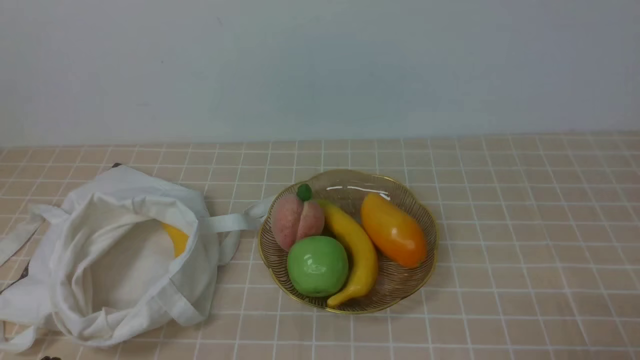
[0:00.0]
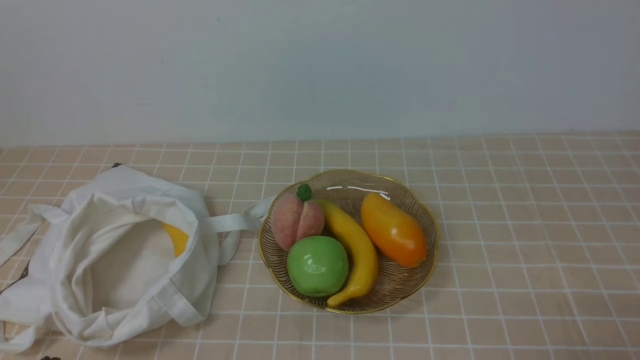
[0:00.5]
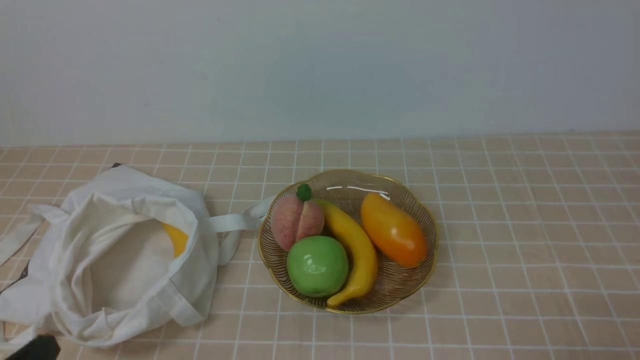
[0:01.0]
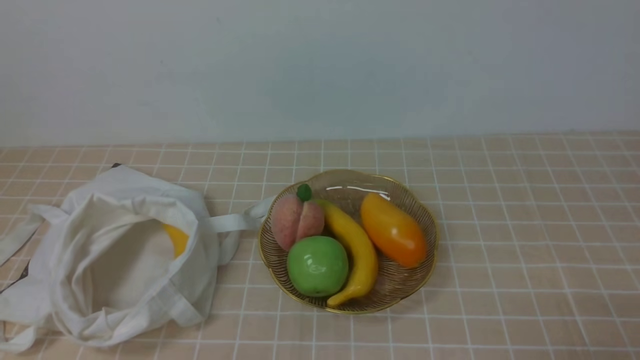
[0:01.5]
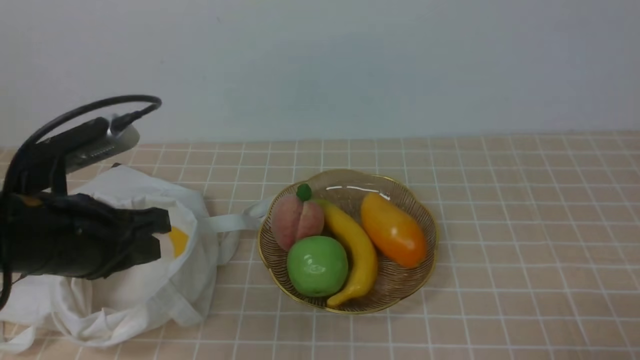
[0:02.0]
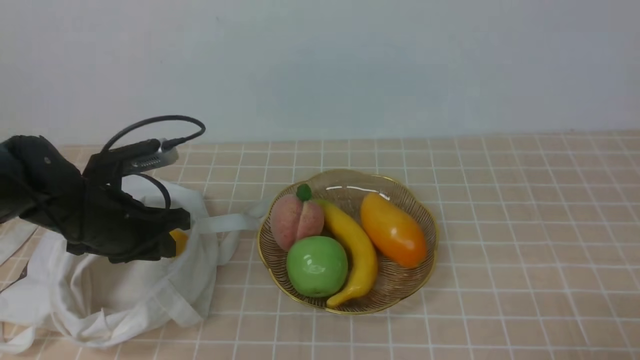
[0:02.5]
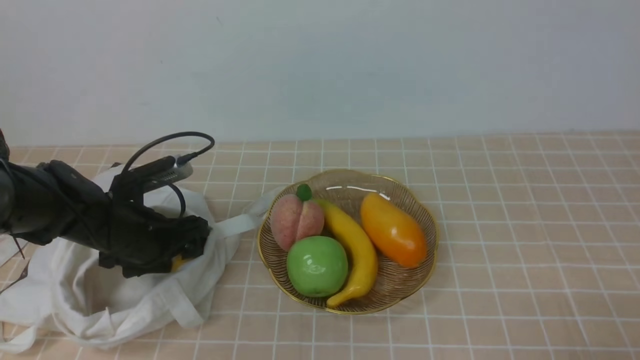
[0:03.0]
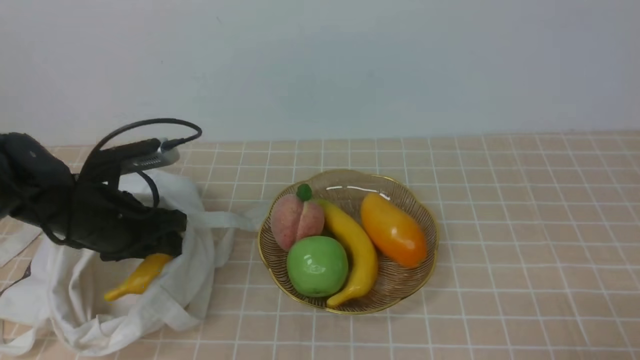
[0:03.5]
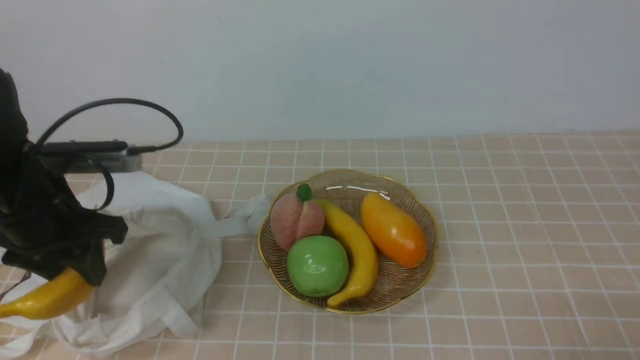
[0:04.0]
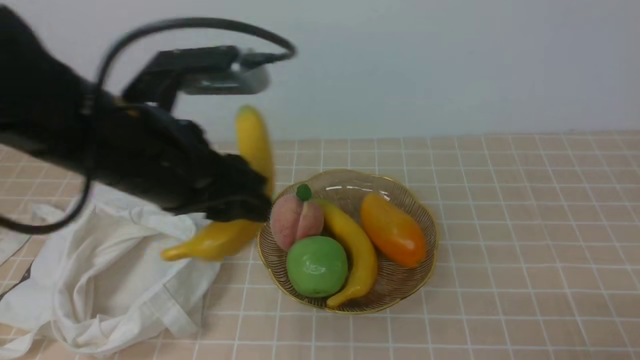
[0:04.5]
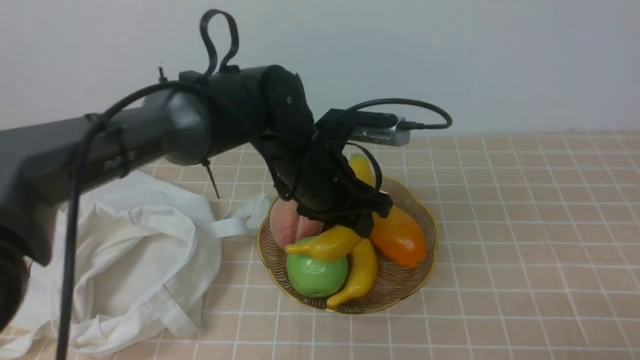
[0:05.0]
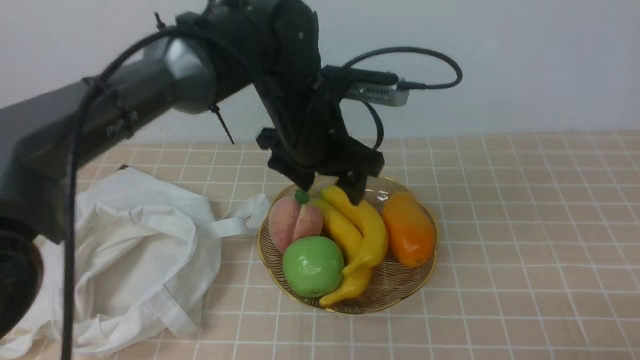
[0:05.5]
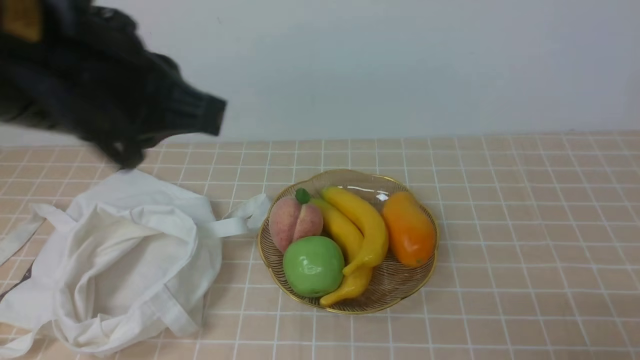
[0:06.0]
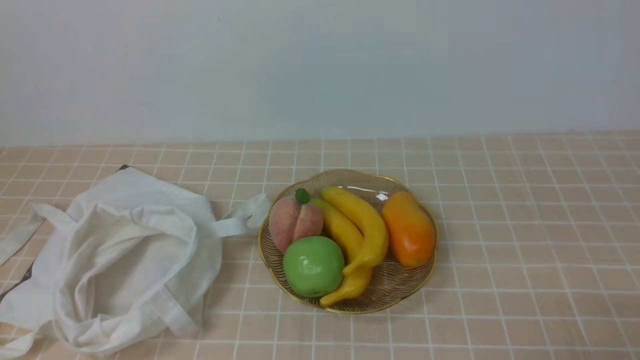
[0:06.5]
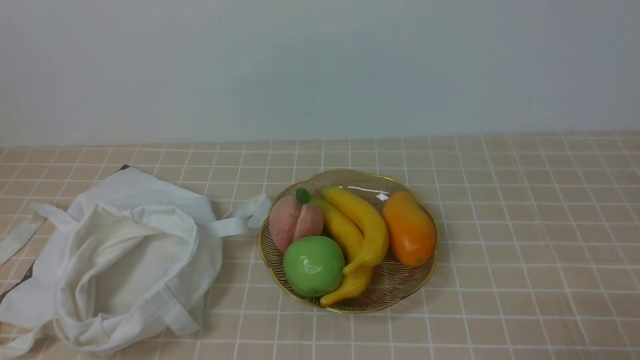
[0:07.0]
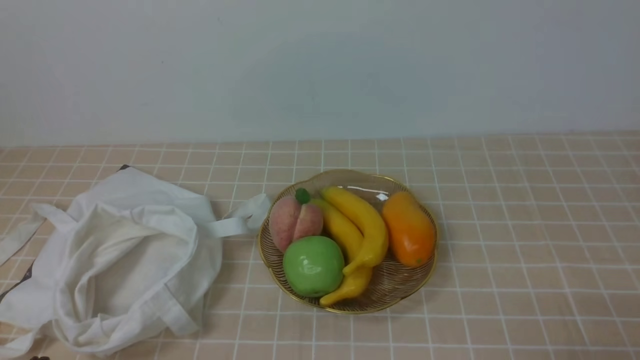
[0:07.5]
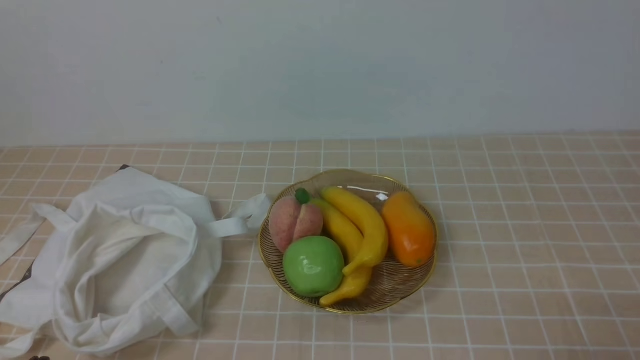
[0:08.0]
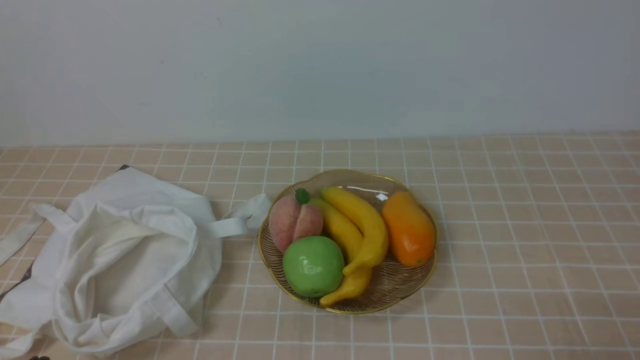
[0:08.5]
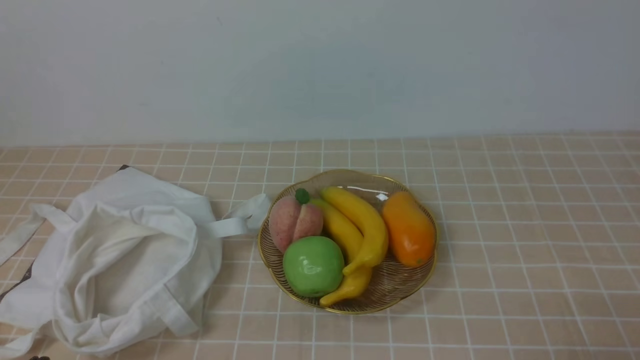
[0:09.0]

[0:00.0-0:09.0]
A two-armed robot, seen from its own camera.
Step, 0:00.0 to 0:03.5: use the left arm to grab a banana from the bag.
Step, 0:04.0 to 0:05.0: use the left arm to put the banana into the empty plate on the right.
0:00.0 to 0:02.0: The left gripper goes roughly 20 cm forward and upward.
0:02.0 to 0:04.5: The left gripper is displaced to the right by some 10 cm, goes downward and returns, some 10 cm each way, and opens up.
0:04.5 to 0:07.0: The left gripper heads backward, to the left and downward, covering about 30 cm, and closes.

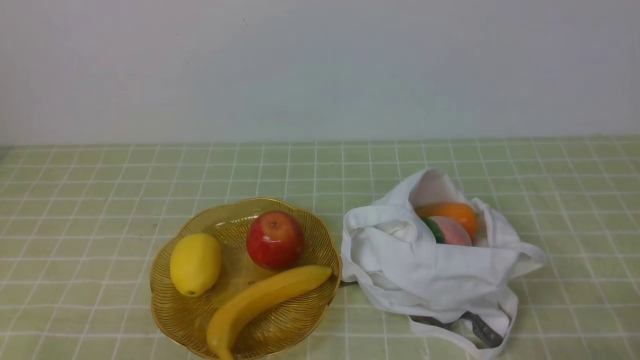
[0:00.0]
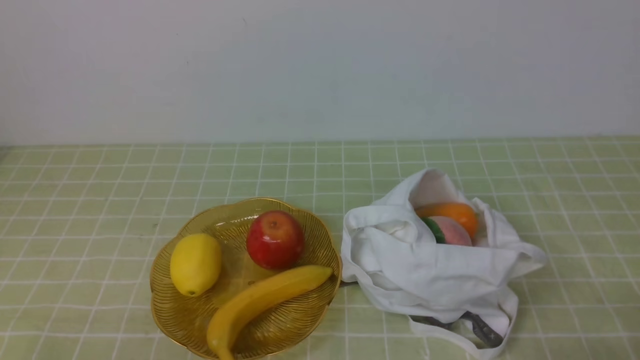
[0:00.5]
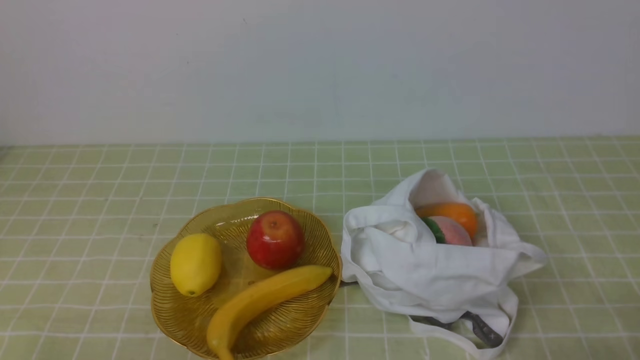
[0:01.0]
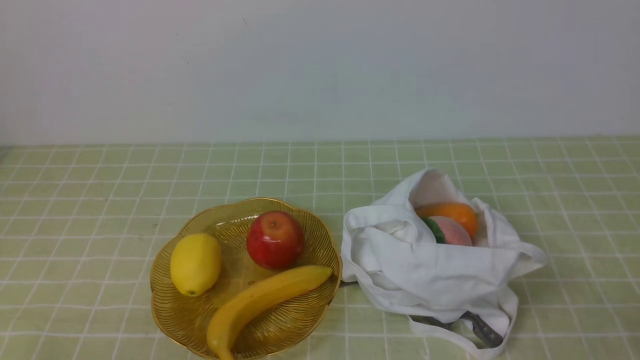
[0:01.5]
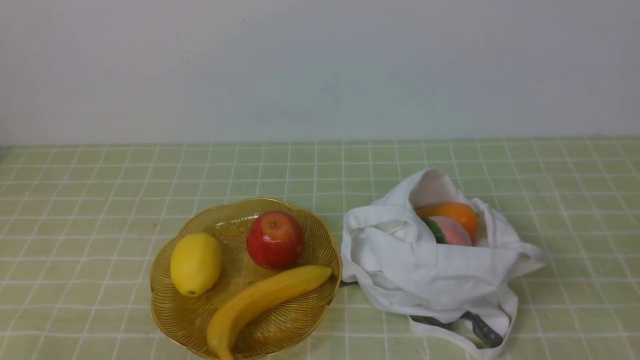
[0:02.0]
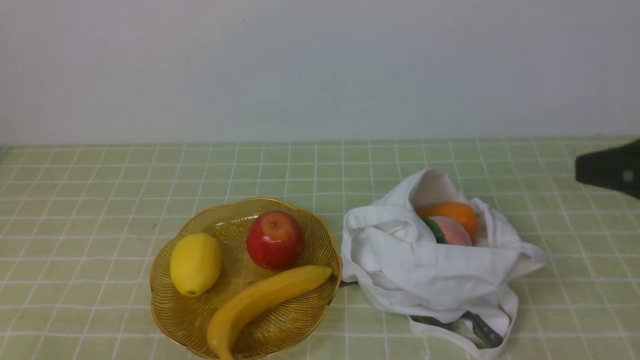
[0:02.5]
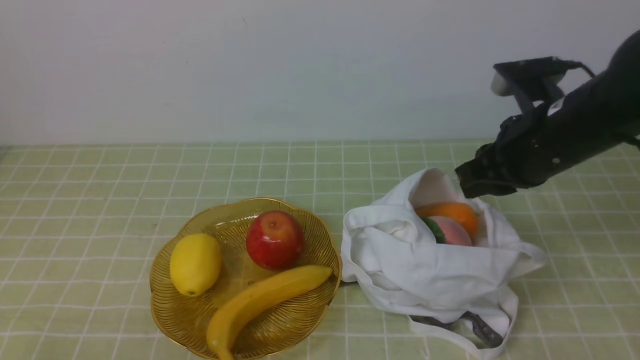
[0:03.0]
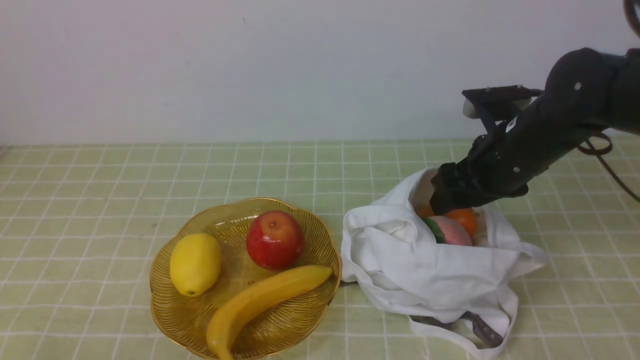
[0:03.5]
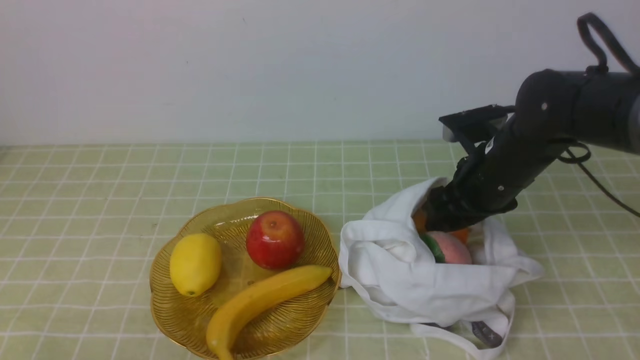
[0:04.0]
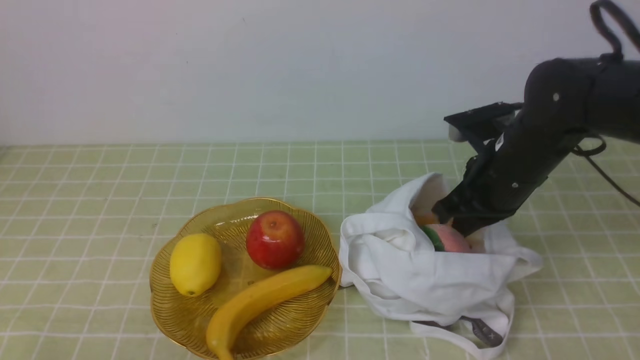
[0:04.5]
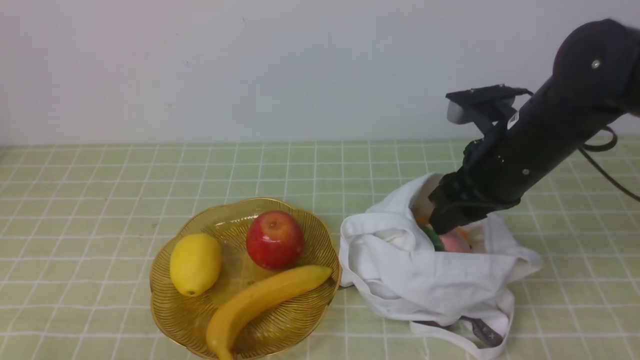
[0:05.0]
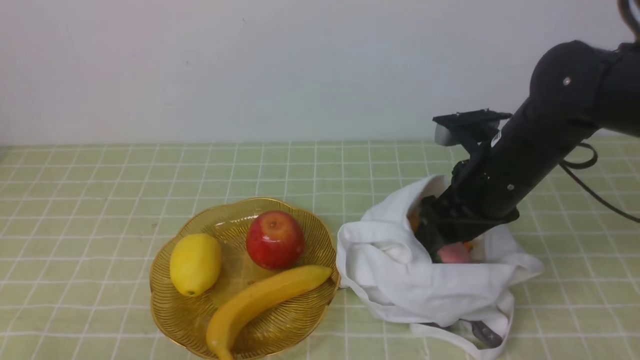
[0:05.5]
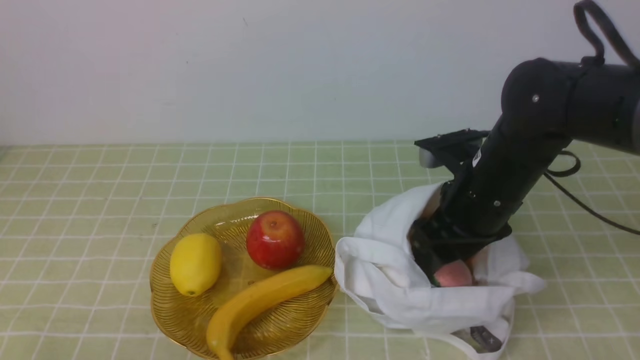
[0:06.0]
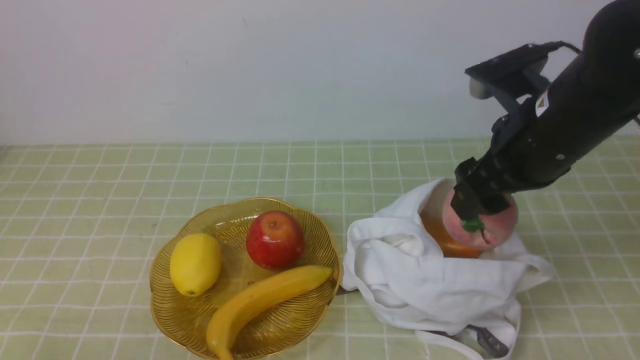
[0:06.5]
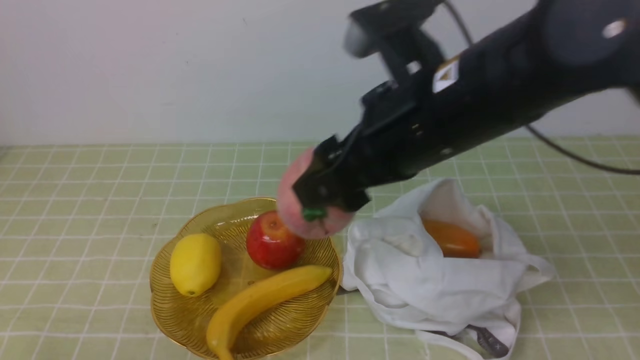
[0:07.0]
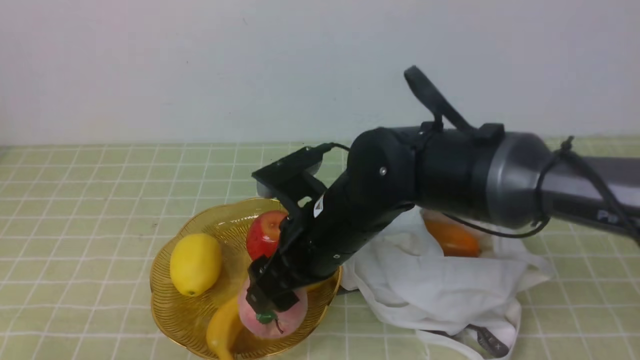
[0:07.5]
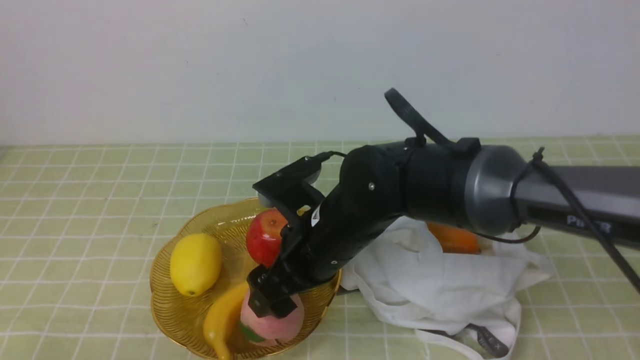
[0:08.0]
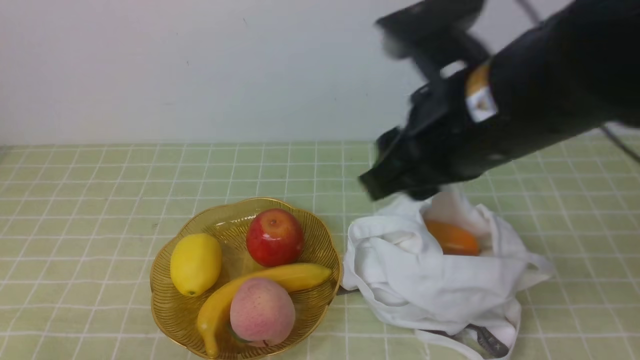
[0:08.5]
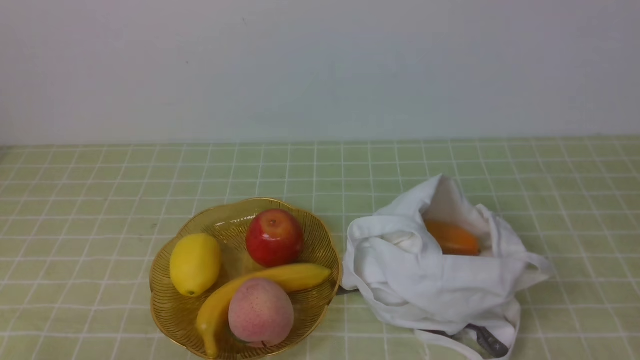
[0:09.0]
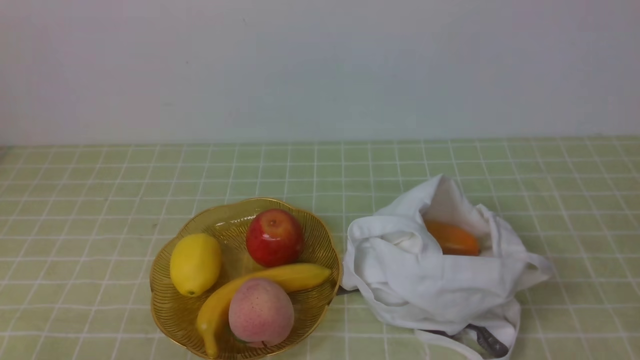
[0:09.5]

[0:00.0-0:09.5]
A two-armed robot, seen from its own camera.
Step, 0:00.0 to 0:06.0: use the right arm to grab a peach from the bag.
Step, 0:06.5 to 0:08.0: use the right arm to put the peach into the empty plate on the left.
0:02.0 to 0:04.0: The right gripper is displaced forward by roughly 30 cm, and opens.
0:04.0 to 0:05.5: The right gripper moves roughly 5 cm, and opens its fingers.
0:05.5 to 0:07.5: The right gripper goes approximately 15 cm to the left.
0:07.5 to 0:09.5: The right gripper shifts some 40 cm to the right and backward, and closes.

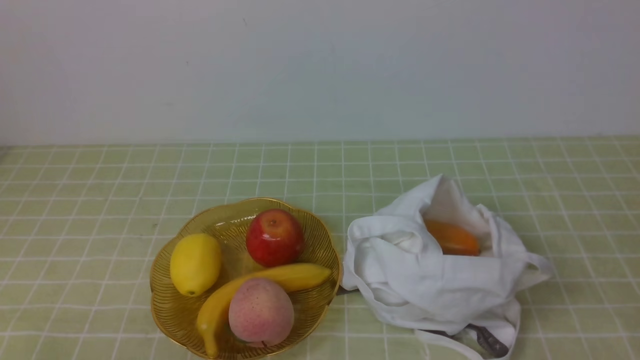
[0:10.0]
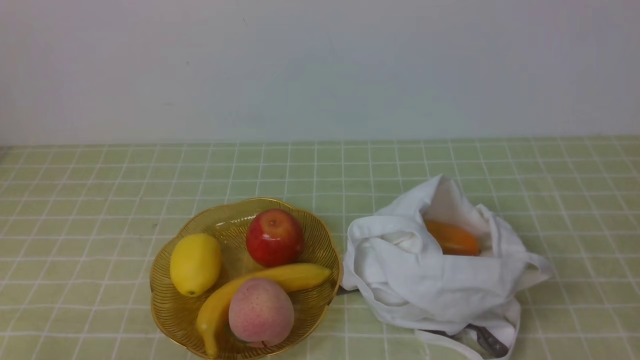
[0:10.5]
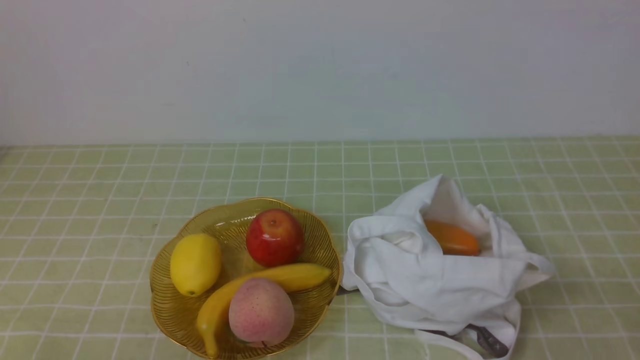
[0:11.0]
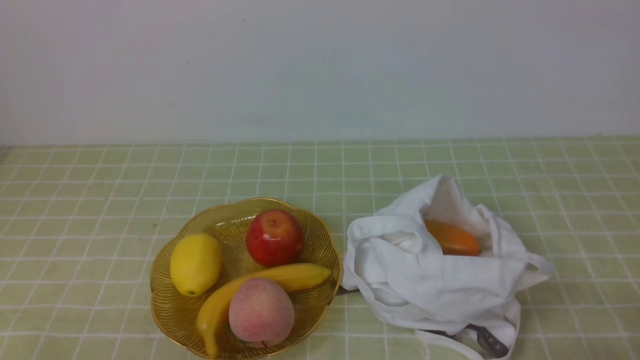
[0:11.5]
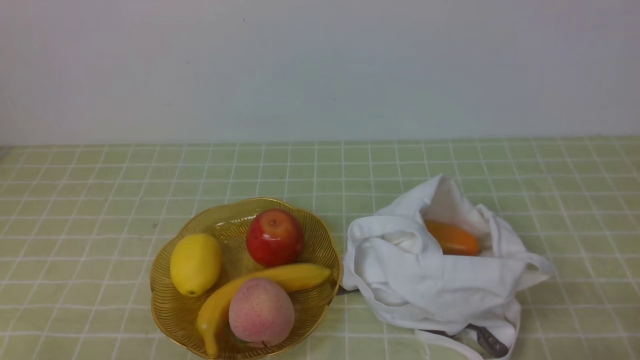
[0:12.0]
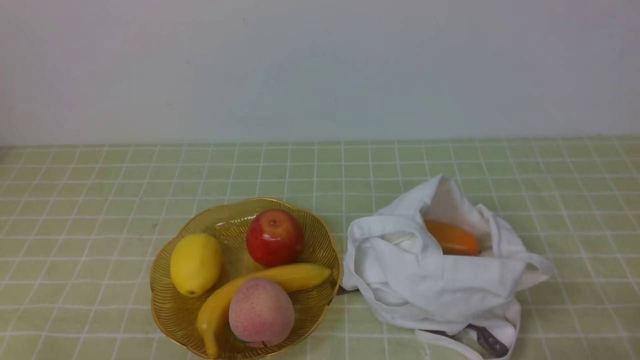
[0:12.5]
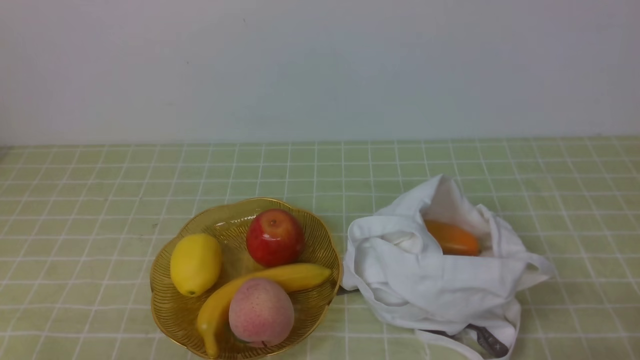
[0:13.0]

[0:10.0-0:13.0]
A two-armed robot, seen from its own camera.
0:11.5 to 0:13.0: Neither gripper changes place.
